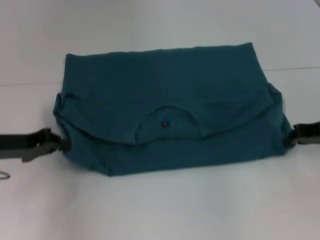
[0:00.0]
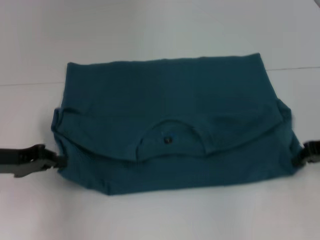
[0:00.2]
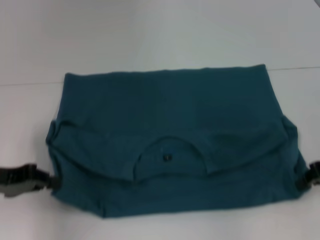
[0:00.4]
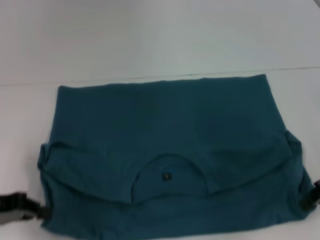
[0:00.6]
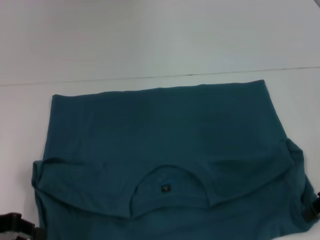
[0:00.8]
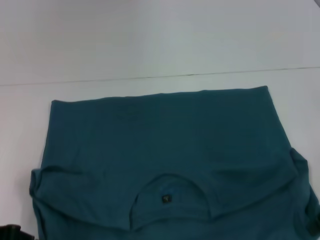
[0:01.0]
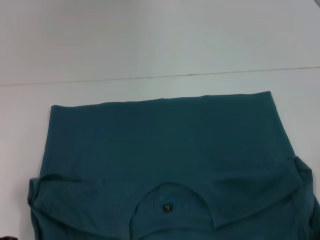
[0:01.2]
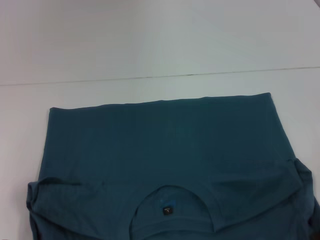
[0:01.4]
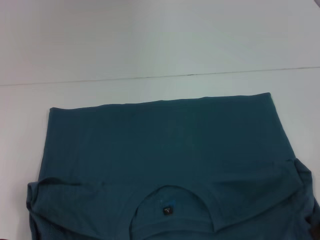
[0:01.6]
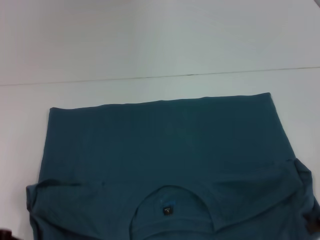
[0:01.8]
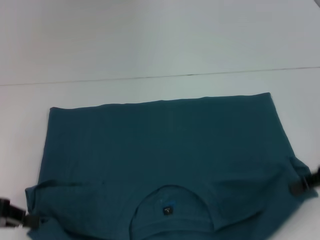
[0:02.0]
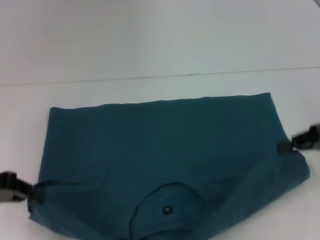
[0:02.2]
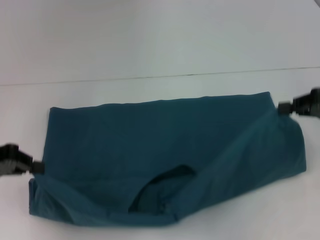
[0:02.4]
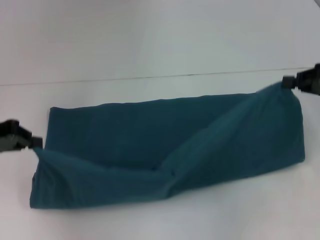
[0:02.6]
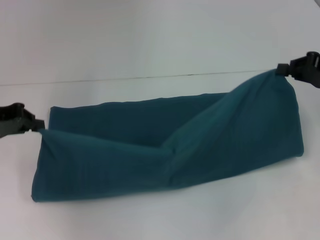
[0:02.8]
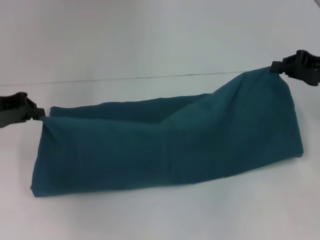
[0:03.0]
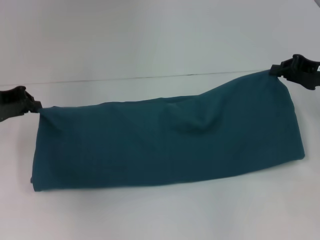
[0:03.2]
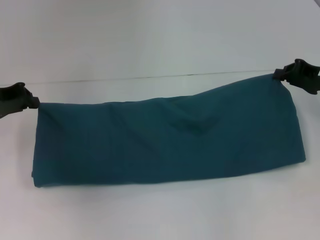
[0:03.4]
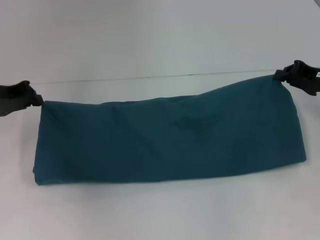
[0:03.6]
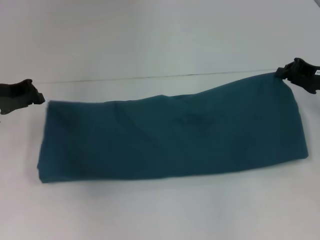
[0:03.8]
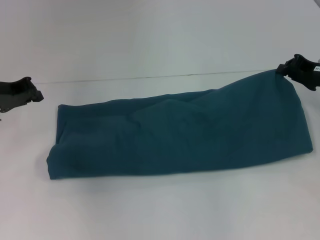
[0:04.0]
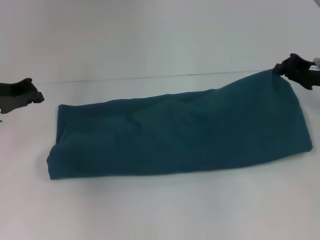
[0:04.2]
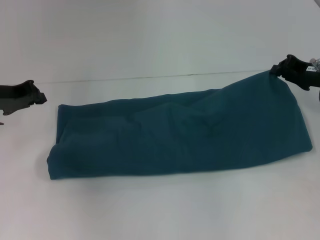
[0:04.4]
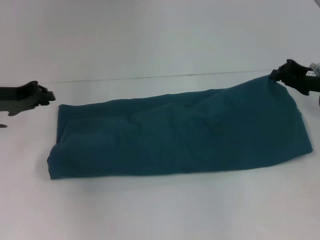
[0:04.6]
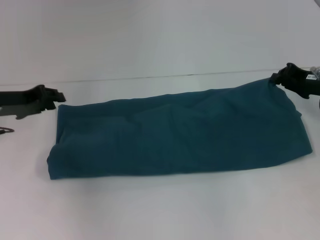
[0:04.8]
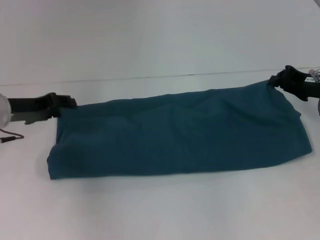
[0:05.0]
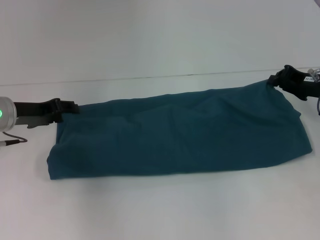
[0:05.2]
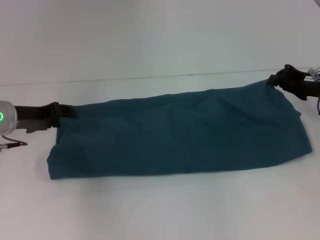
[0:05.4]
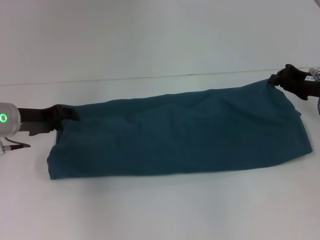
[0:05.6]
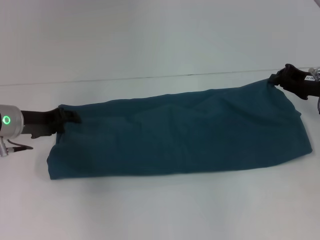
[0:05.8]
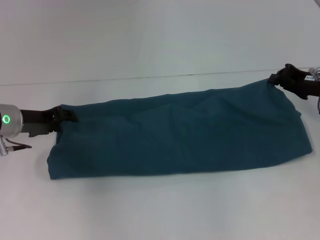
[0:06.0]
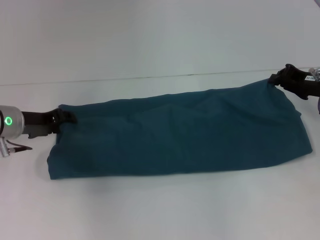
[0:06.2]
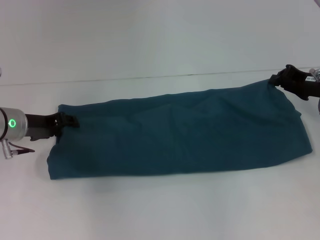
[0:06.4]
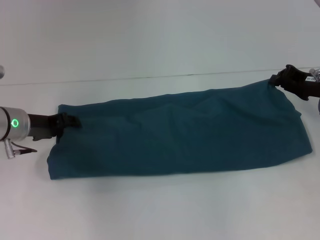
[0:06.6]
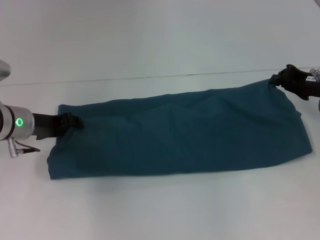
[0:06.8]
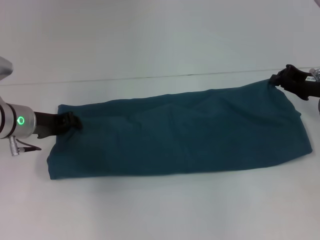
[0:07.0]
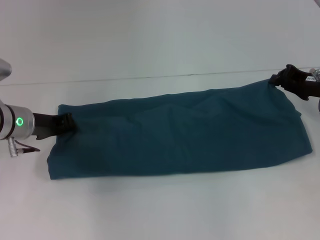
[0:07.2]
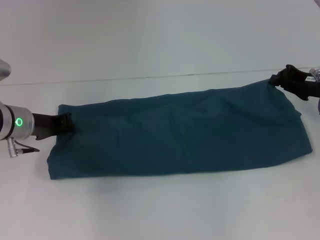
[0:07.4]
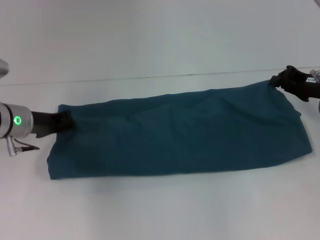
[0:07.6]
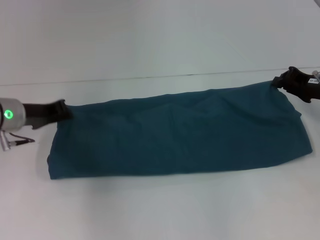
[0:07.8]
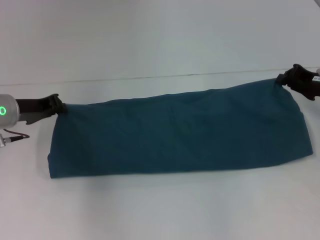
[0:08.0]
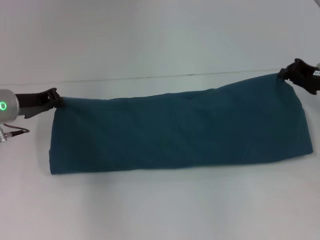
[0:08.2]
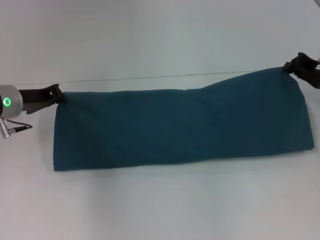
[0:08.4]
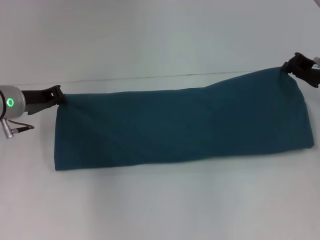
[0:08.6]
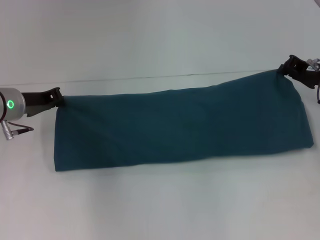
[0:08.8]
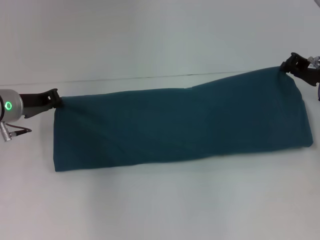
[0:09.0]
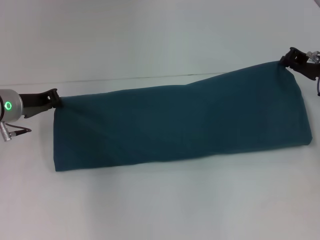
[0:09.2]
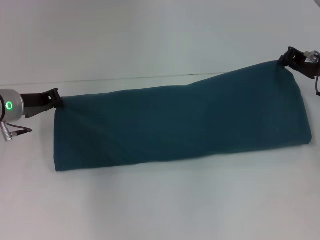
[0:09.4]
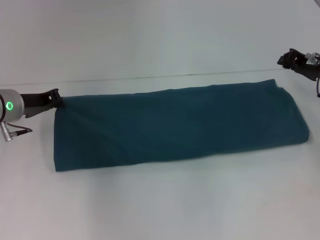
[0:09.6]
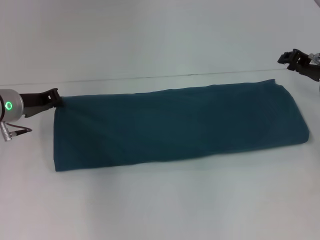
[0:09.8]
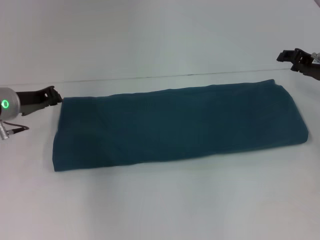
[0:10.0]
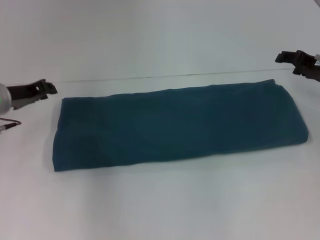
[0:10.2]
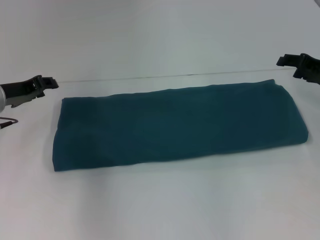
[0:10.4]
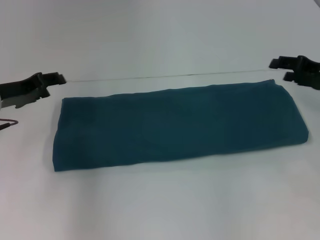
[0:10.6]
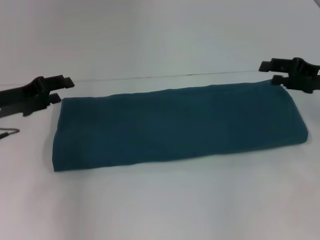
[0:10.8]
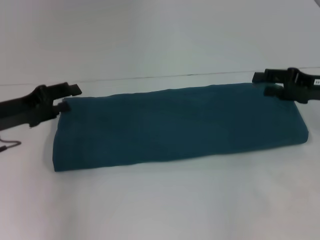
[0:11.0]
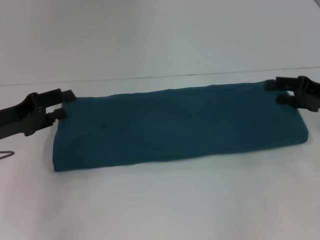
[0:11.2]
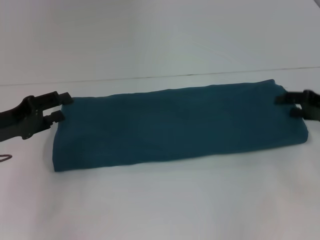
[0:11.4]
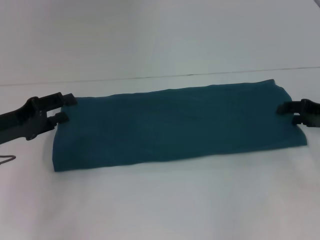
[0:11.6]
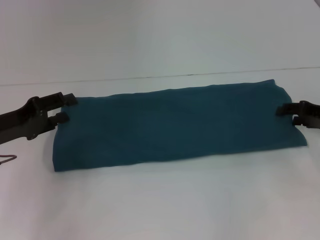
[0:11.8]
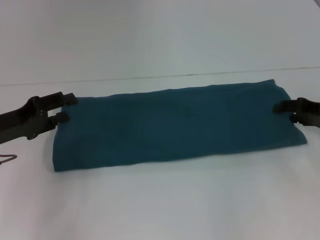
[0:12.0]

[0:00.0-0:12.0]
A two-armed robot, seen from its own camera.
Step, 0:01.8 to 0:10.0: Fold the clothes to the right.
0:00.0 to 0:01.6: Both grippers travel together backward, some 10 cm.
0:01.6 to 0:03.0: The grippers both shift forward by roughly 15 cm.
0:03.0 to 0:04.4: The right gripper shifts by some 5 cm.
0:04.4 to 0:06.0: The left gripper moves roughly 5 cm, and opens.
0:06.0 to 0:07.6: The left gripper closes its fingers.
0:07.6 to 0:09.0: There are only small adjustments of the grippers.
0:09.0 to 0:10.4: The right gripper opens. Meanwhile the left gripper opens up.
0:10.4 to 0:12.0: The left gripper goes roughly 10 cm backward. Meanwhile the right gripper ends up roughly 5 cm from where it was.

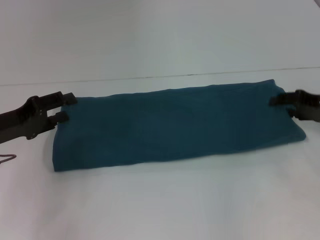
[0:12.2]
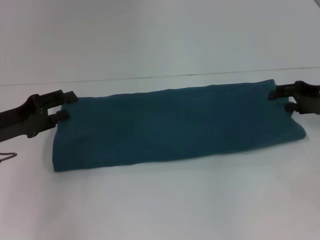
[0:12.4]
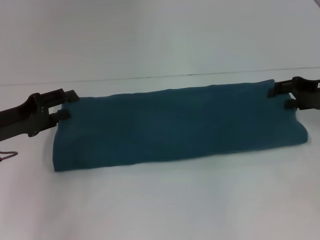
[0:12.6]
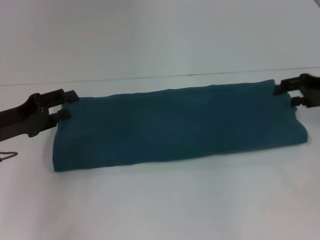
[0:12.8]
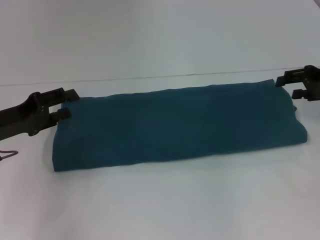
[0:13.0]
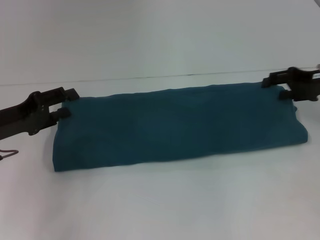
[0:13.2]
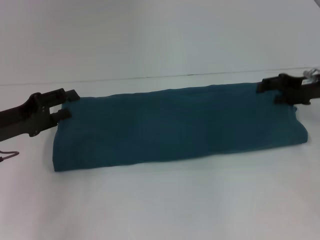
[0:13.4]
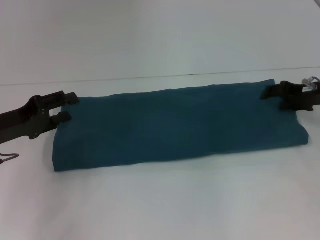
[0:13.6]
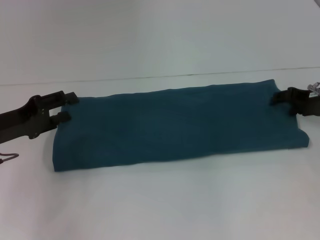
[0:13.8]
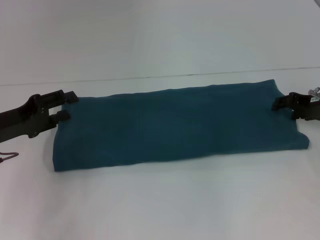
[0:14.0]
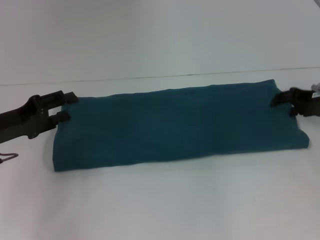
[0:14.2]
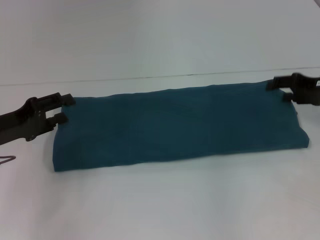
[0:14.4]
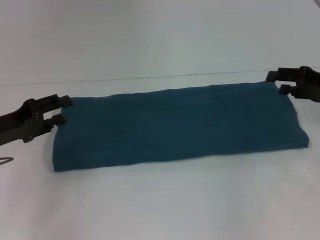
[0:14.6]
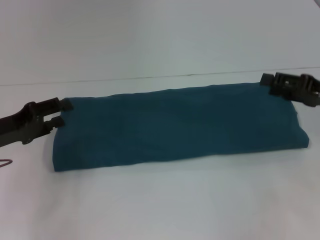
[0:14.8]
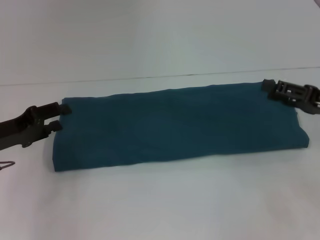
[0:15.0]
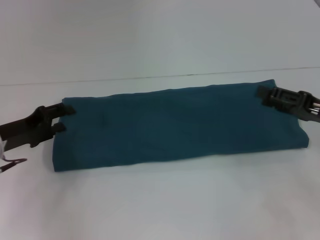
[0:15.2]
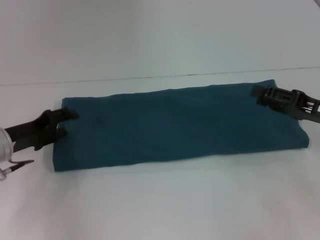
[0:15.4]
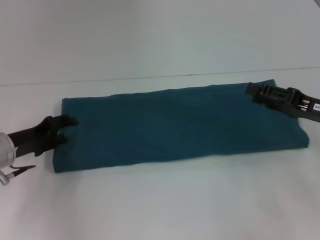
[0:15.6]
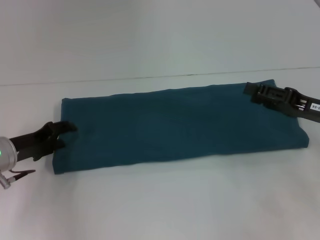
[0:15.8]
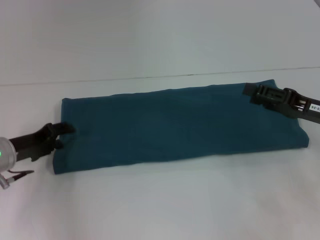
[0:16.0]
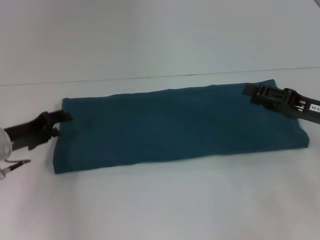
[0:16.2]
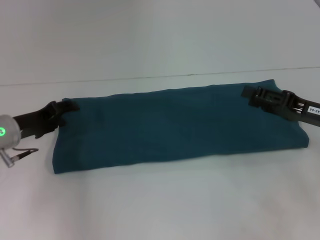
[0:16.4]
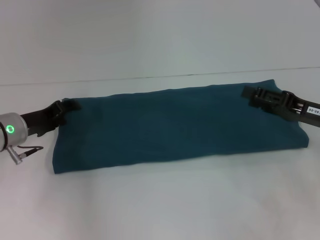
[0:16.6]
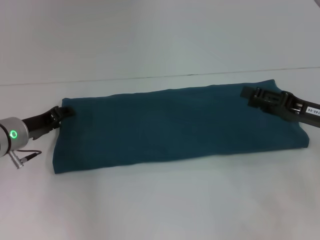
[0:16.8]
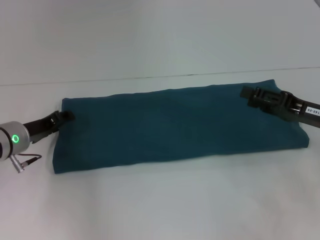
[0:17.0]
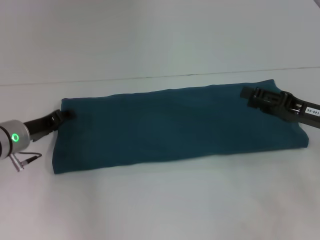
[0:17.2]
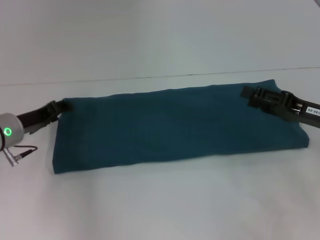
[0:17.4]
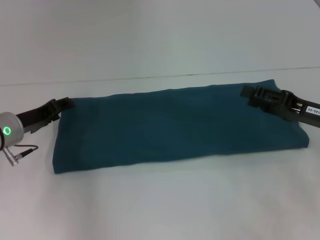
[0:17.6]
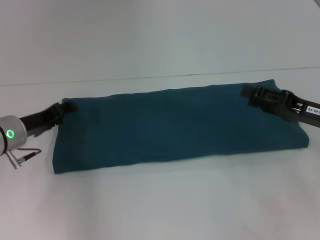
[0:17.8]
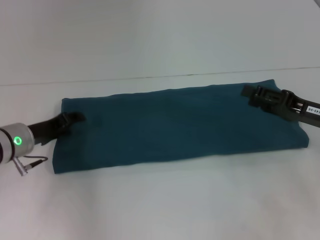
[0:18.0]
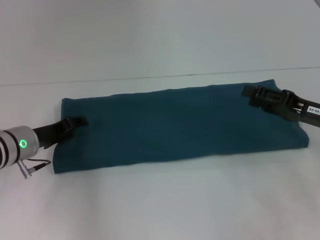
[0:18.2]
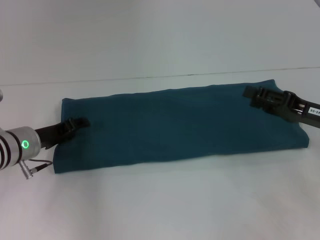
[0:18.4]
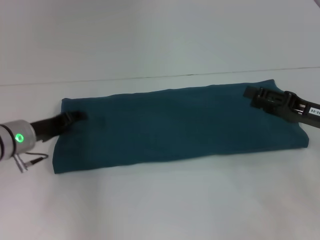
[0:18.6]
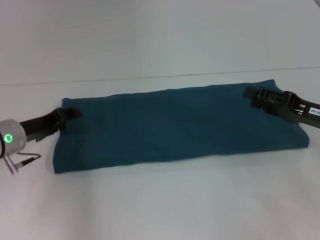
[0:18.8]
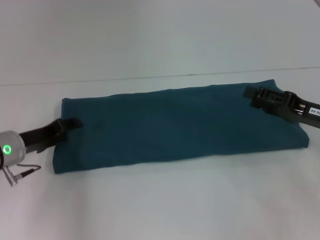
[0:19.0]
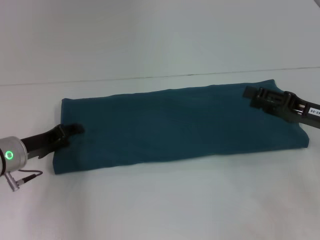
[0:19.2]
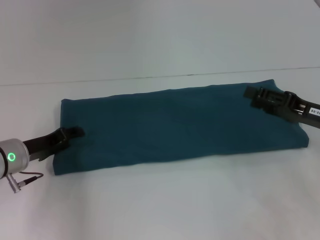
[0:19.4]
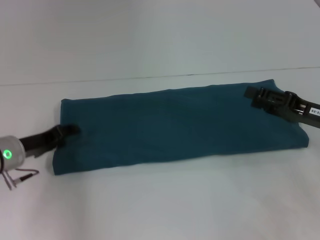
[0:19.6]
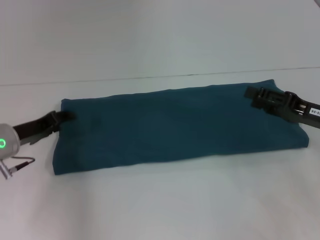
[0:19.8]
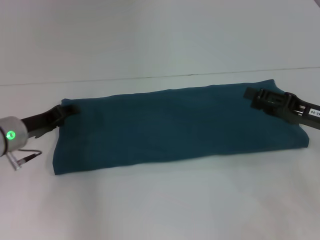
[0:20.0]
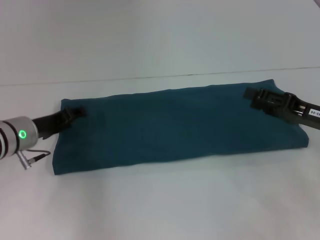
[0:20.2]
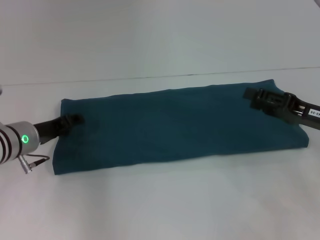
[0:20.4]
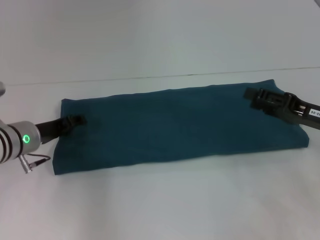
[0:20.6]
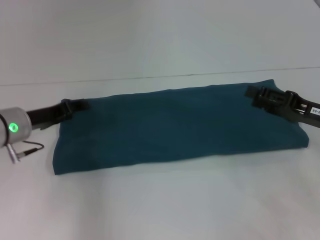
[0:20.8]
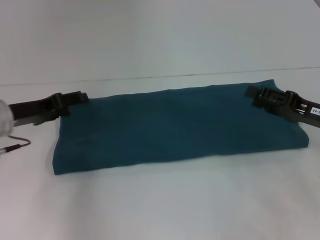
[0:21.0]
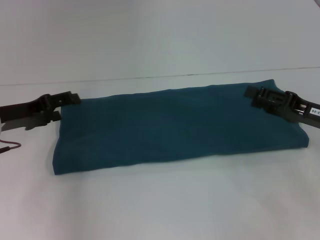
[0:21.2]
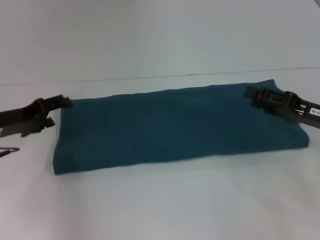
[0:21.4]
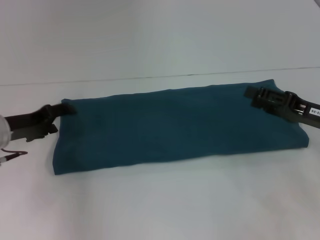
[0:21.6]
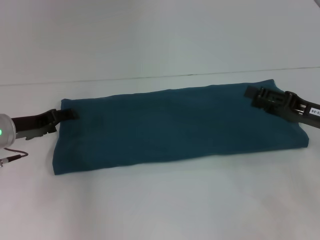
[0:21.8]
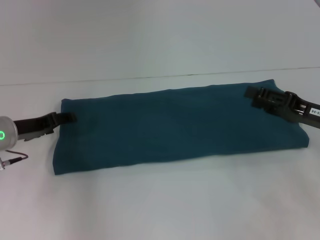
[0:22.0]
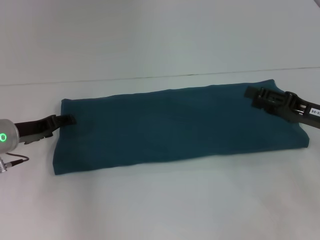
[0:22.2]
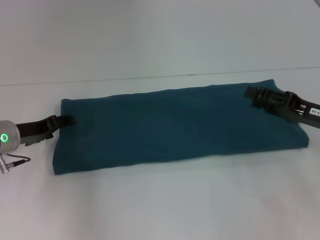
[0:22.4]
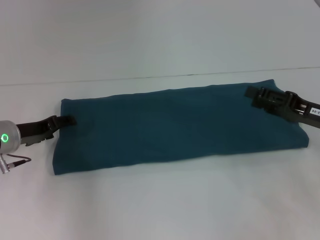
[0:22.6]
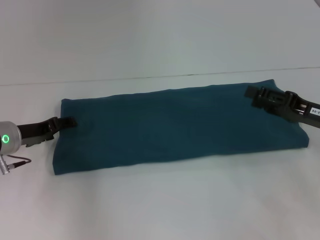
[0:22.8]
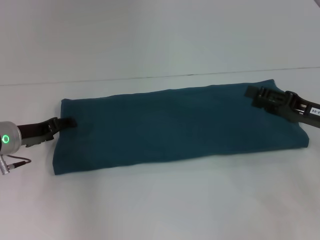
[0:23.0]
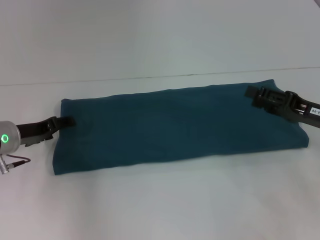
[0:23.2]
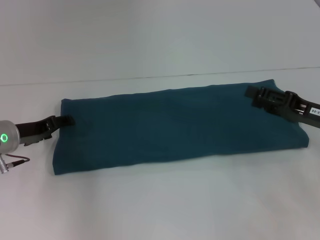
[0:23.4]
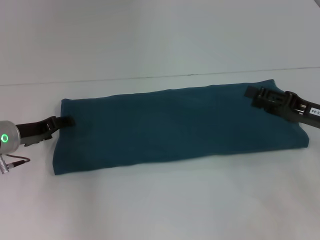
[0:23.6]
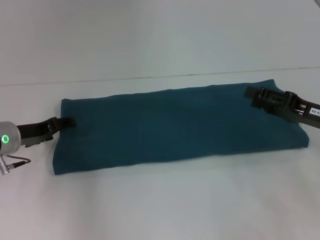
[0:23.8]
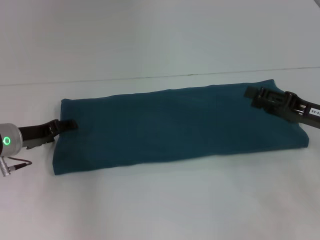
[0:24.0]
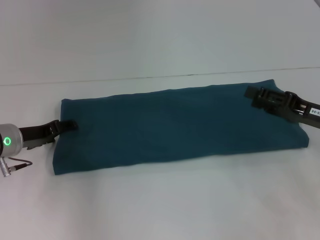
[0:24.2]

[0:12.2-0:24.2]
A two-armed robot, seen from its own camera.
0:12.2 to 0:13.8: There are only small adjustments of the grippers.
0:13.8 to 0:15.2: The right gripper moves backward, approximately 10 cm.
0:15.2 to 0:16.6: The left gripper shifts by roughly 5 cm.
0:16.6 to 0:21.2: The grippers make only small movements.
0:21.2 to 0:22.6: The left gripper ends up roughly 5 cm from where it was.
0:22.6 to 0:24.2: Both grippers stay put.
